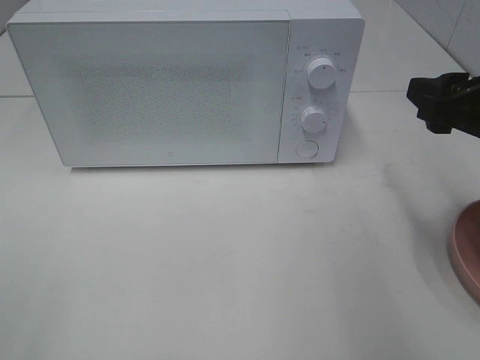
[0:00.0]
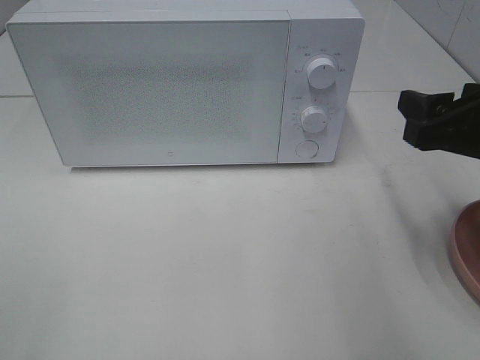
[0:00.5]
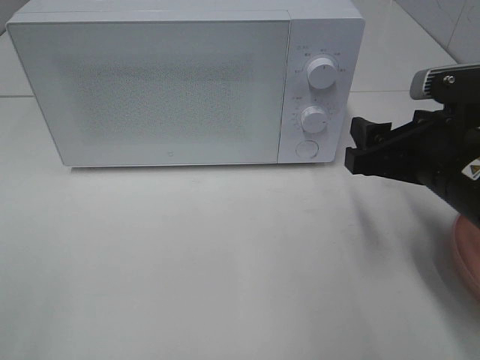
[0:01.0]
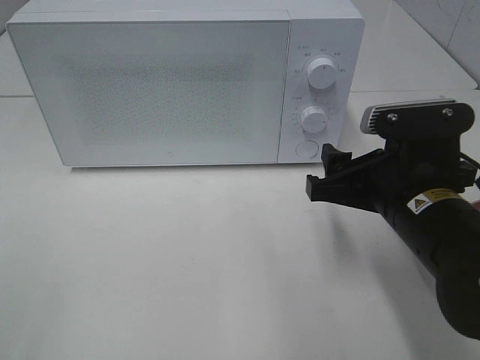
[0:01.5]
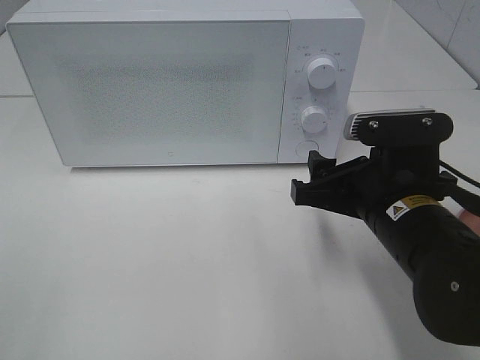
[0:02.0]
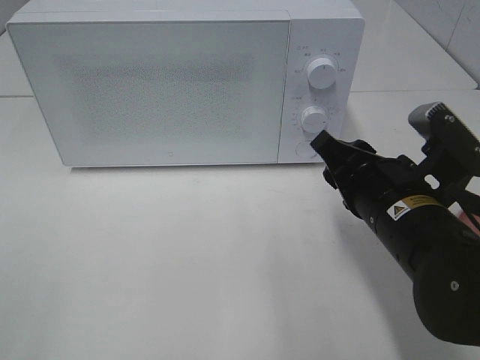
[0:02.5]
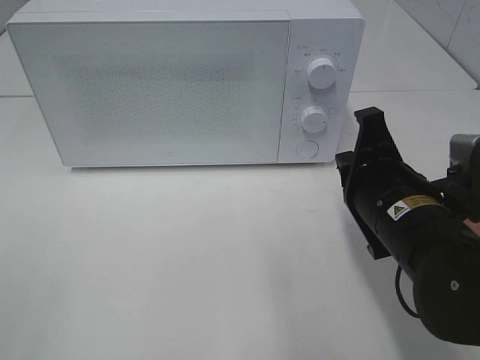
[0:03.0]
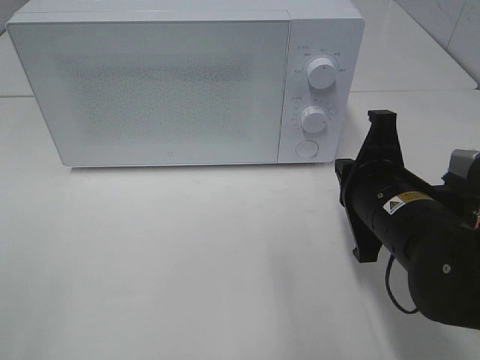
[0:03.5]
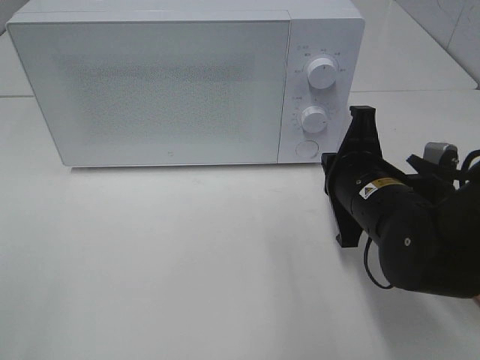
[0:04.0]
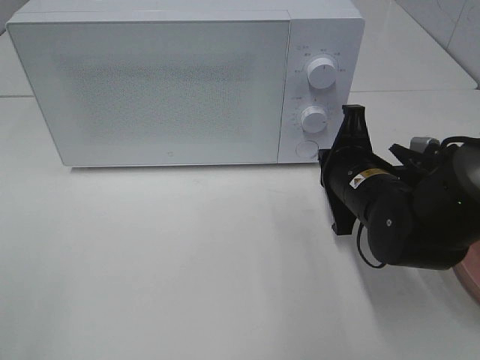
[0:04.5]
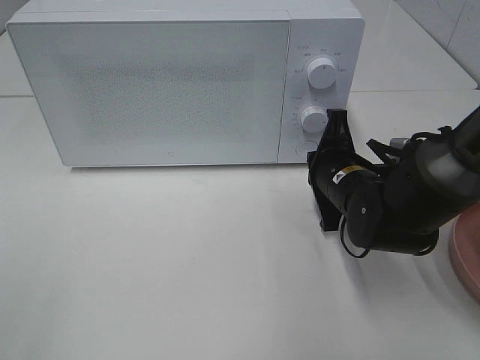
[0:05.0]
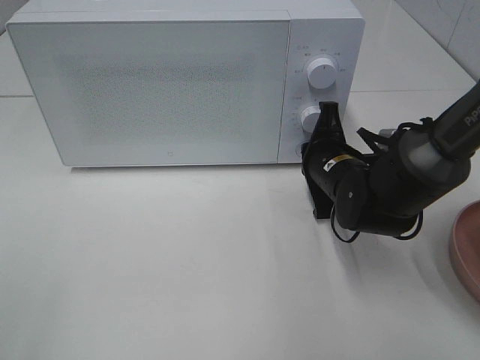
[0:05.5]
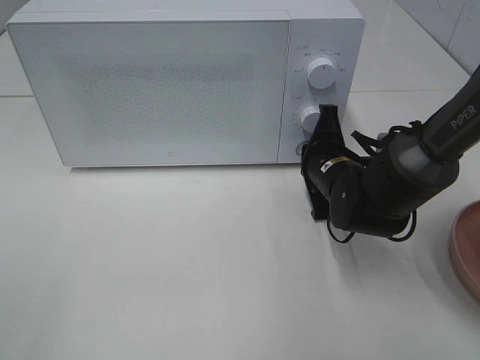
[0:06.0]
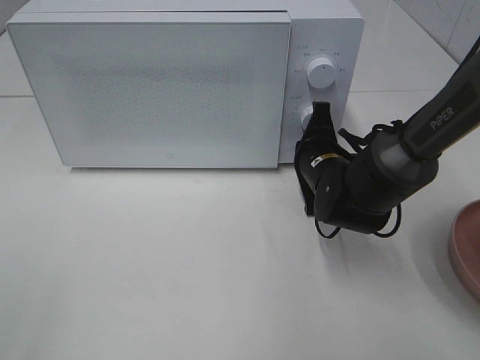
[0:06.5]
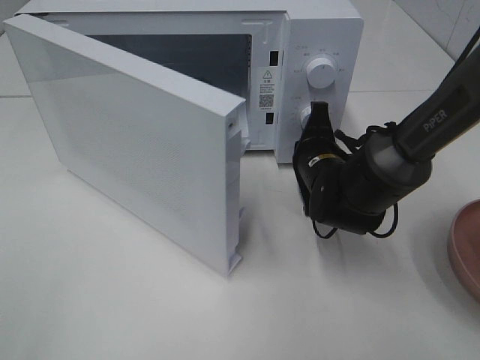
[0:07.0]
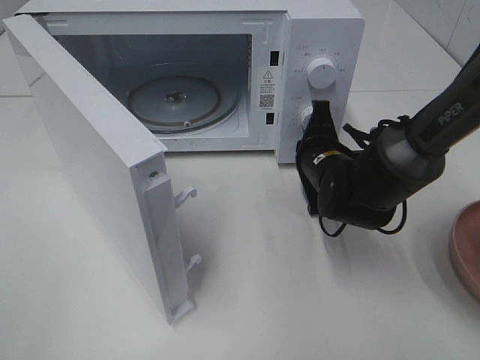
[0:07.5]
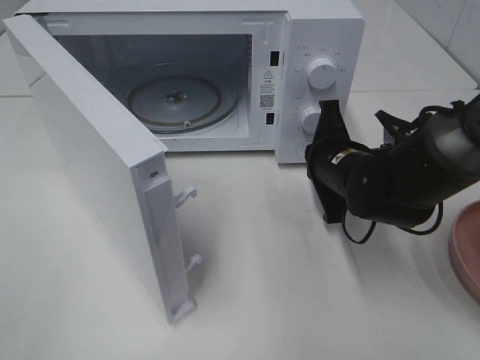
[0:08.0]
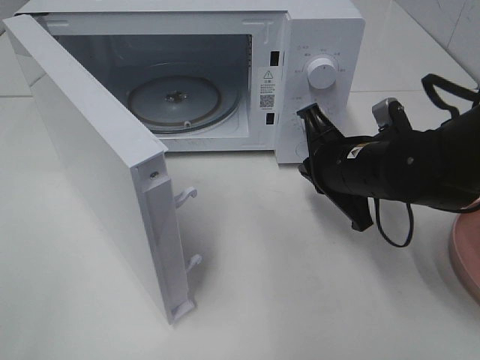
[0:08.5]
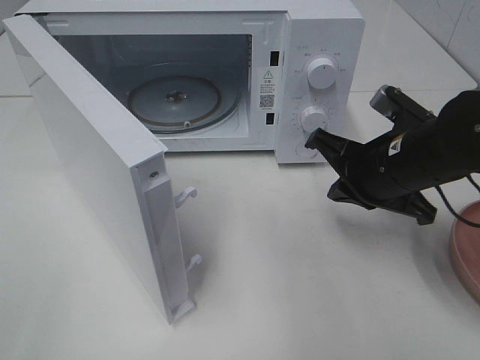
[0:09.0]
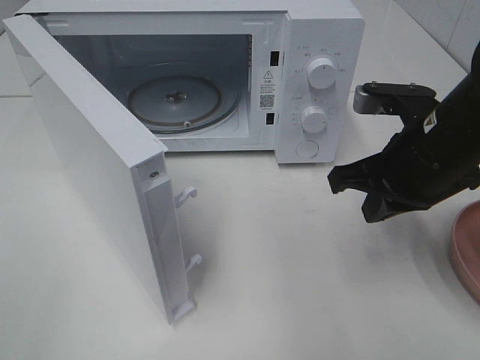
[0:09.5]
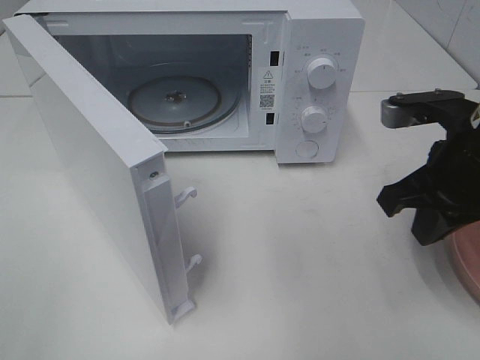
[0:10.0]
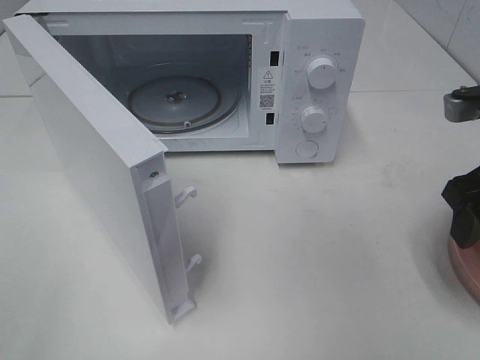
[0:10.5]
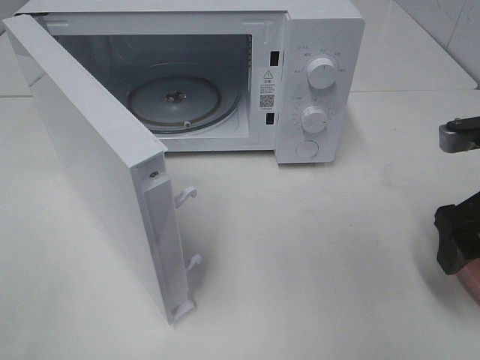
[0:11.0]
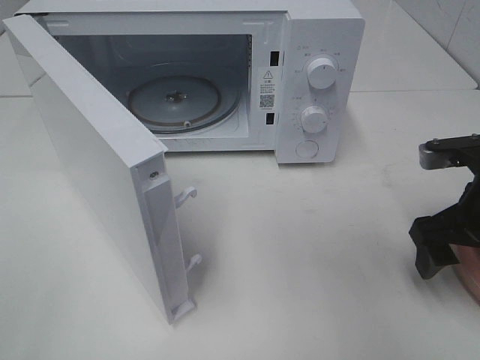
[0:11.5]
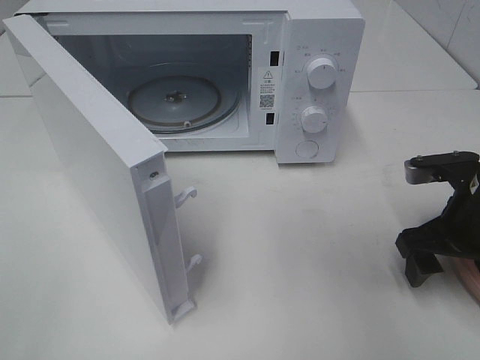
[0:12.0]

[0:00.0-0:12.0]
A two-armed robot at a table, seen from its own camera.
Task of the whole recording: Heat the burger.
Step, 0:00.0 to 0:08.0: Right hand: press the switch.
0:00.0 to 0:02.0: The right gripper shifts about 15 cm to the left and downward.
0:02.0 to 0:04.0: The right gripper closes its fingers.
0:04.0 to 0:06.0: The right gripper moves forward, some 10 cm.
0:08.0 to 0:10.0: The right gripper is displaced upward, backward and to the right by some 15 cm.
0:10.0 to 0:12.0: The right gripper shifts about 10 cm downward, and opens up.

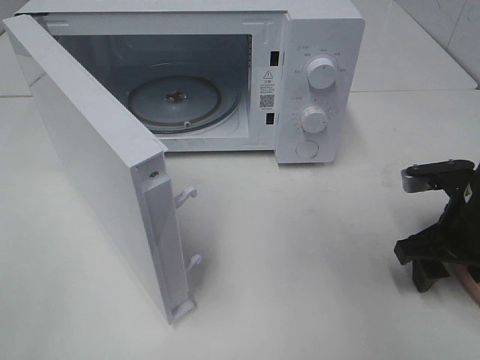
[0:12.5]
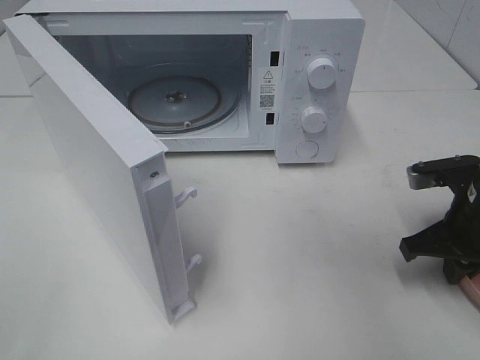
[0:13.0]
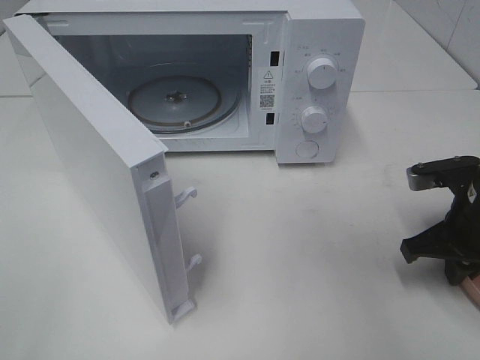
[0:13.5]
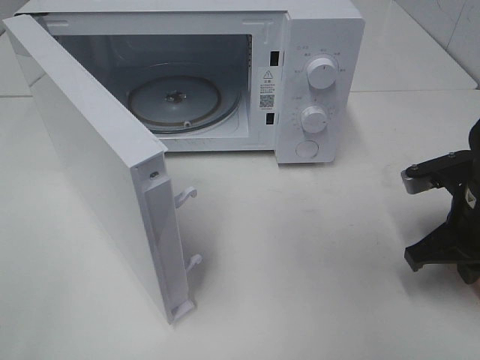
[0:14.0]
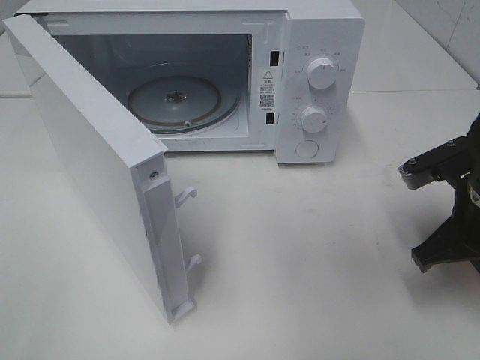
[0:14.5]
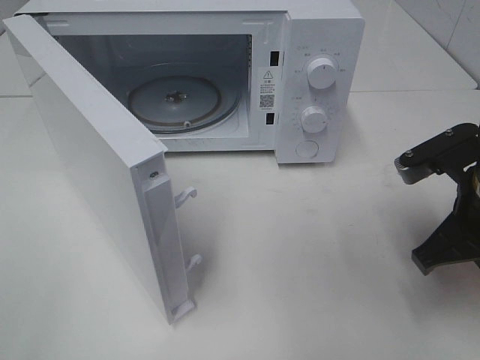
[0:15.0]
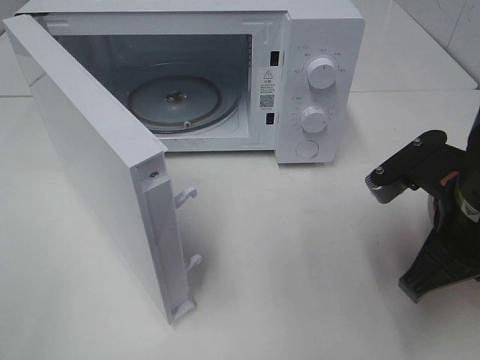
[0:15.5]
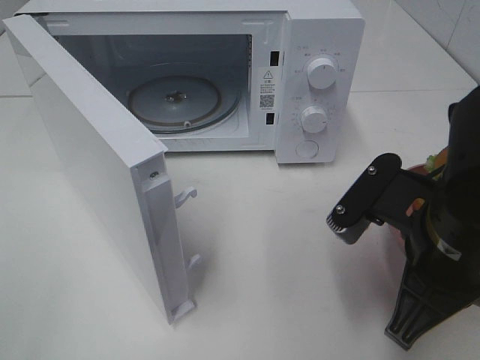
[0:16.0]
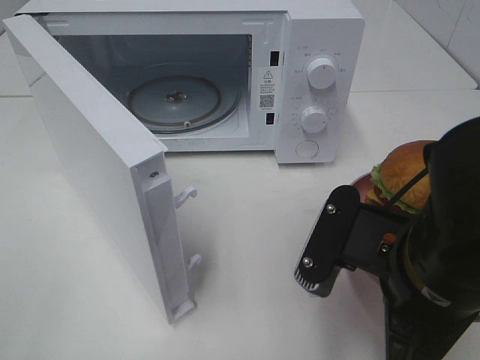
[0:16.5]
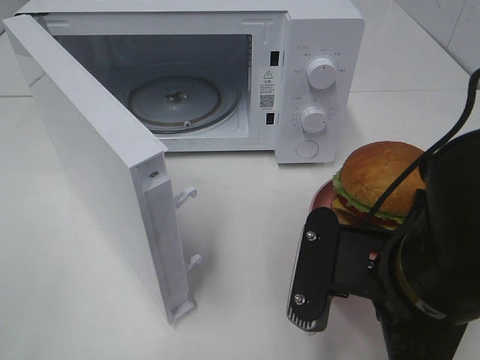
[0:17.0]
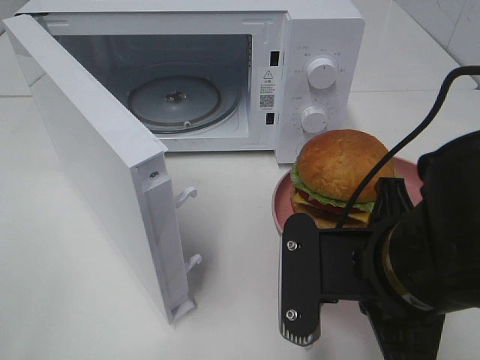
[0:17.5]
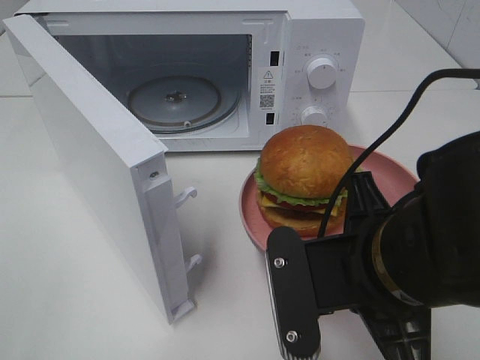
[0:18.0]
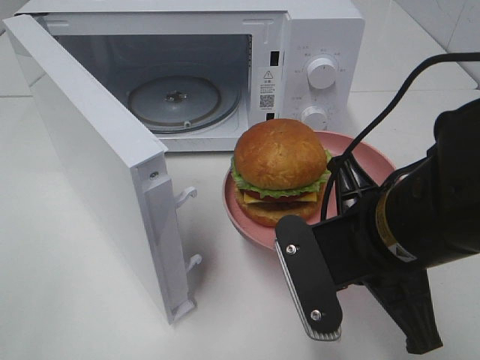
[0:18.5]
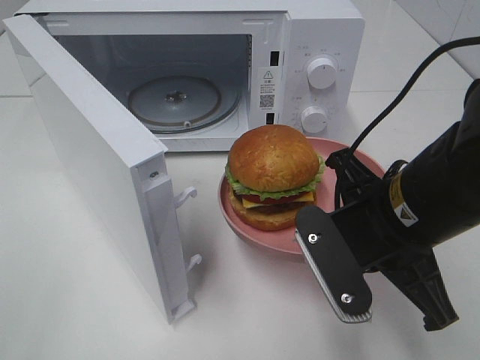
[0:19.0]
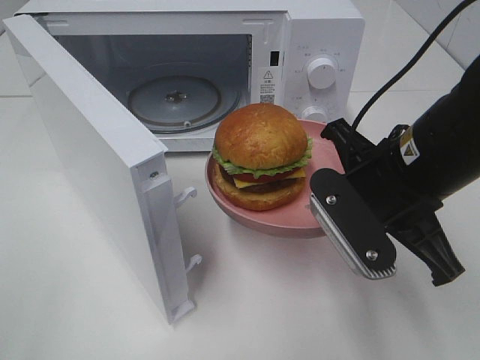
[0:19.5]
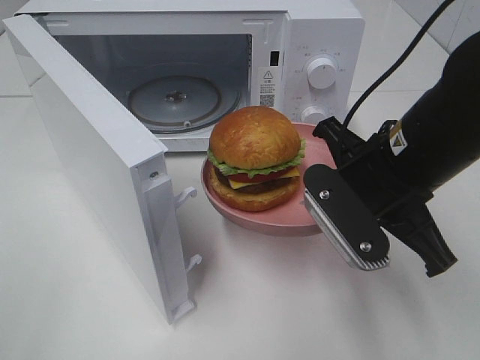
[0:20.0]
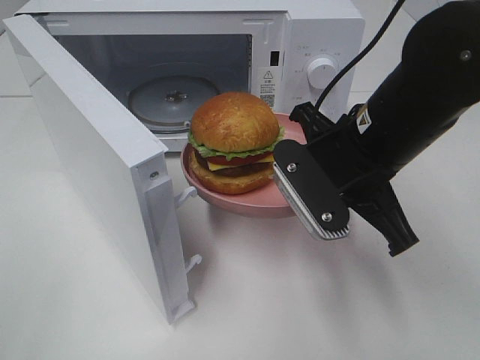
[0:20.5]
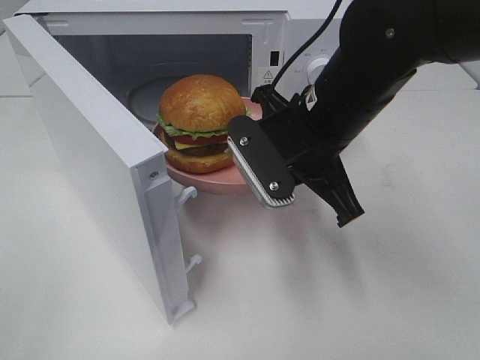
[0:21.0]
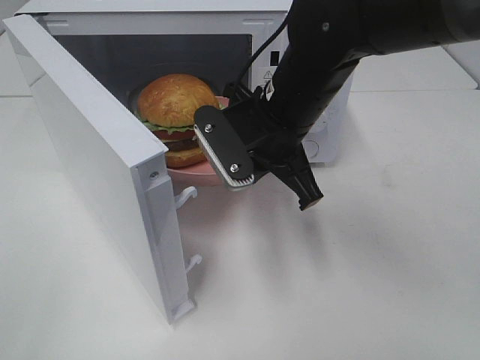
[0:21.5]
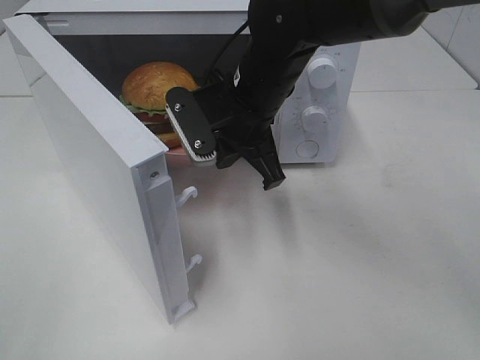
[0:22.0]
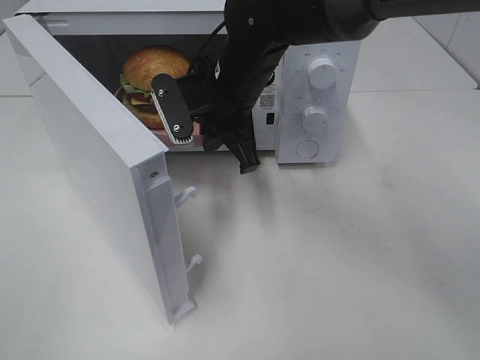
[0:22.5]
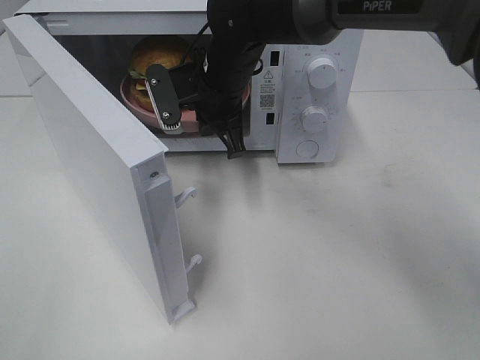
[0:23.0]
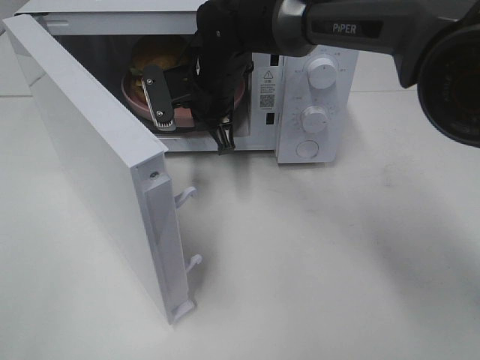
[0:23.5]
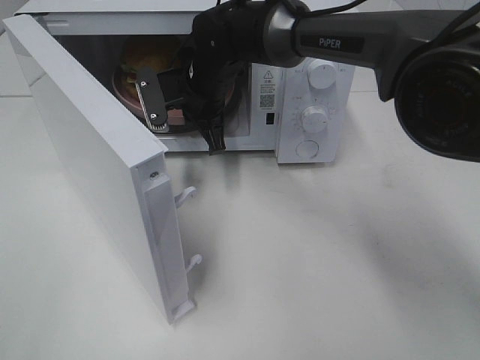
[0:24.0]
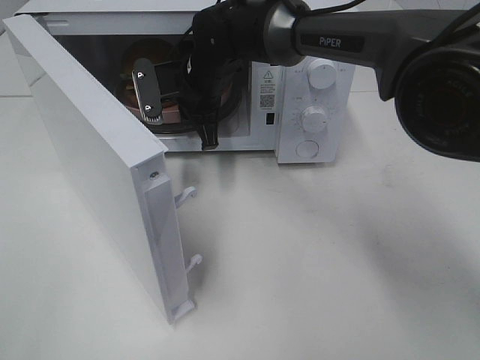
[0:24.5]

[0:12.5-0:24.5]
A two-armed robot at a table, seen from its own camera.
Task of the whole recording: Heat the burger.
0:12.5 to 0:14.5: The right gripper ends up about 5 cm from where it was, and closes up.
0:14.5 to 0:16.5: The right gripper goes approximately 15 cm to the left and backward.
0:18.5 to 0:20.5: The right gripper goes approximately 10 cm forward.
0:20.5 to 0:22.5: The right gripper heads forward and to the left, covering roughly 15 cm.
0:22.5 to 0:24.5: The right gripper shifts some 5 cm forward.

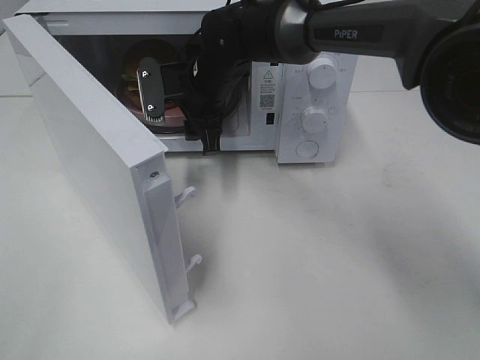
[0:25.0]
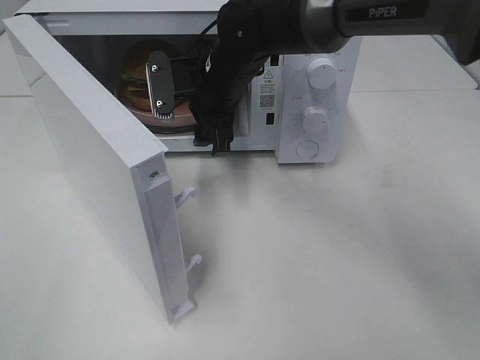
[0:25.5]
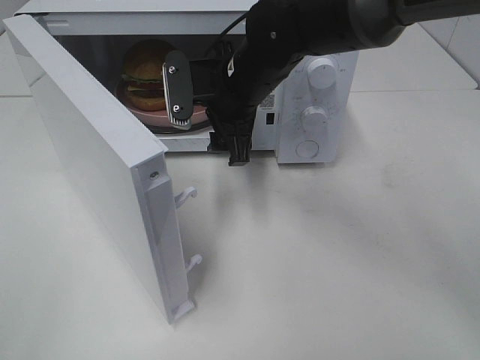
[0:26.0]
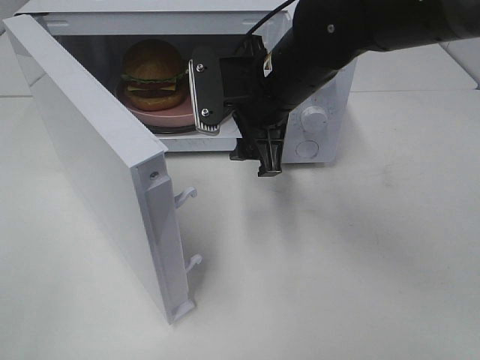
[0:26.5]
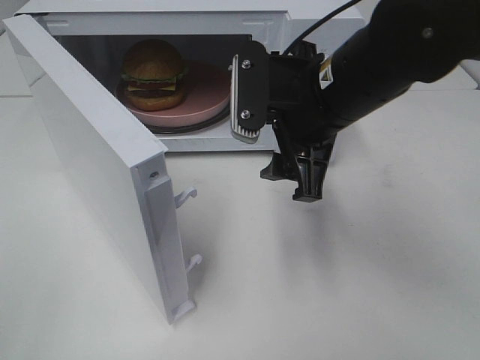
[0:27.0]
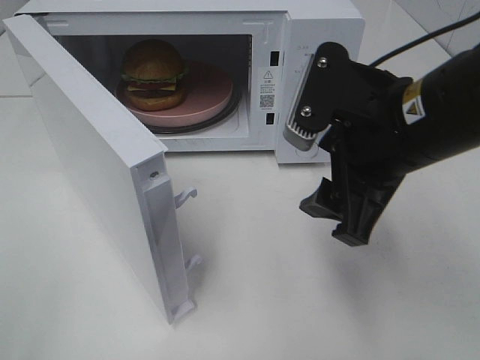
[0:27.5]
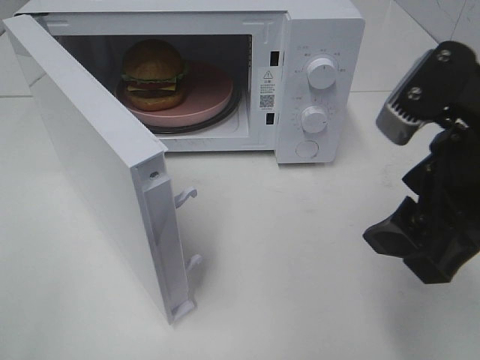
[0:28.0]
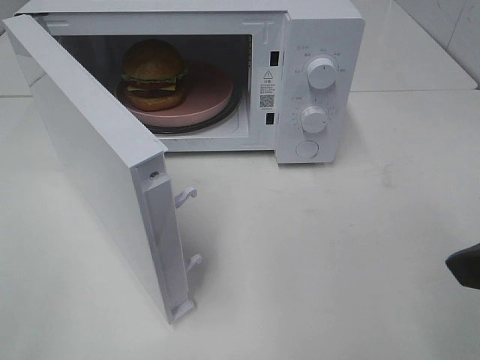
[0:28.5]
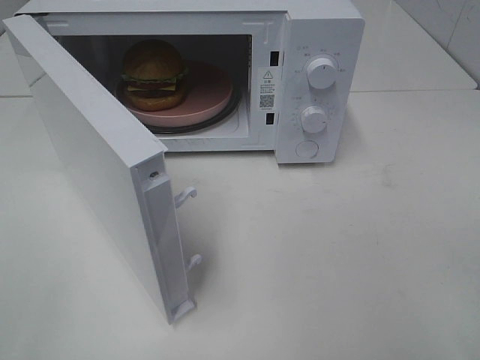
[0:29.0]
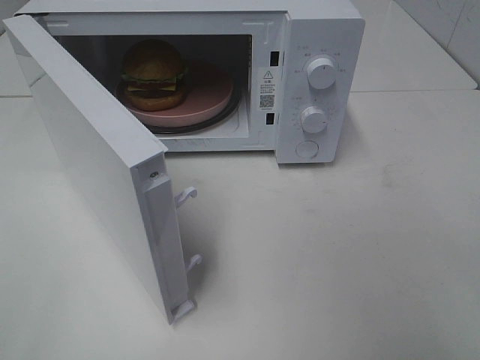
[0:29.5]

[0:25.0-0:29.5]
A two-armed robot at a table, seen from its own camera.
Task of the whole recording: Heat the burger.
0:25.0 to 0:27.0: The right gripper moves backward, to the right and upward, about 20 cm.
0:27.0 to 0:29.5: The right gripper is displaced backward and to the right by about 30 cm.
